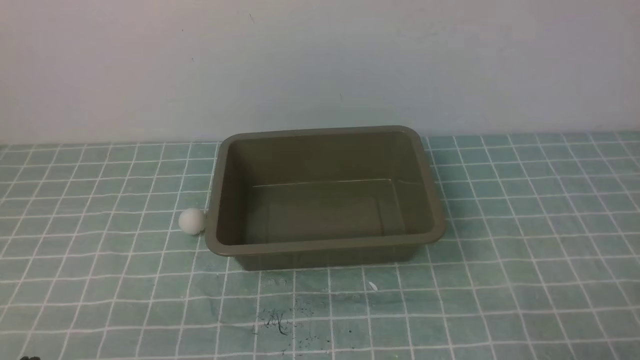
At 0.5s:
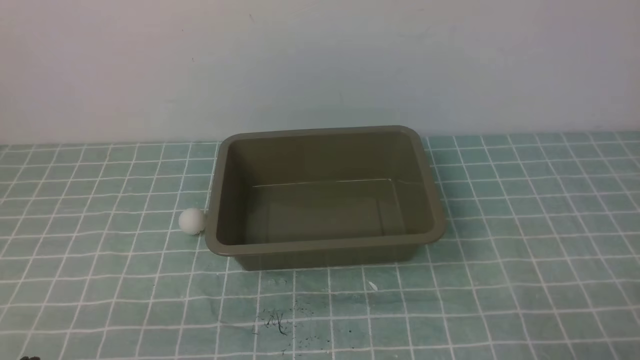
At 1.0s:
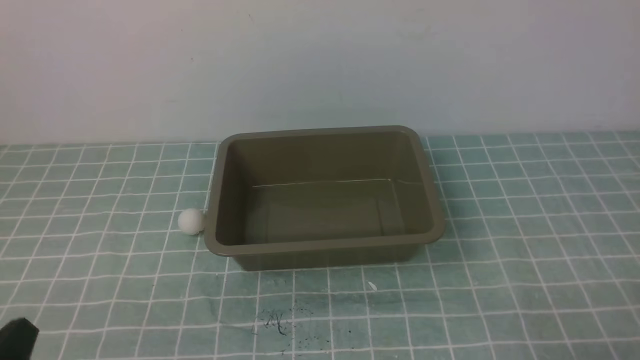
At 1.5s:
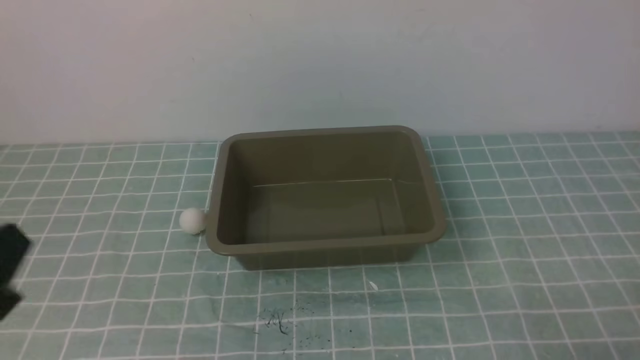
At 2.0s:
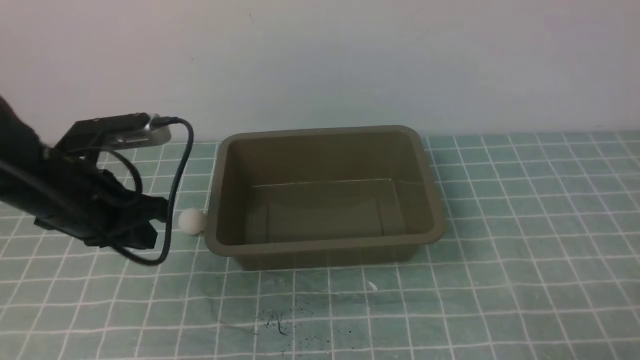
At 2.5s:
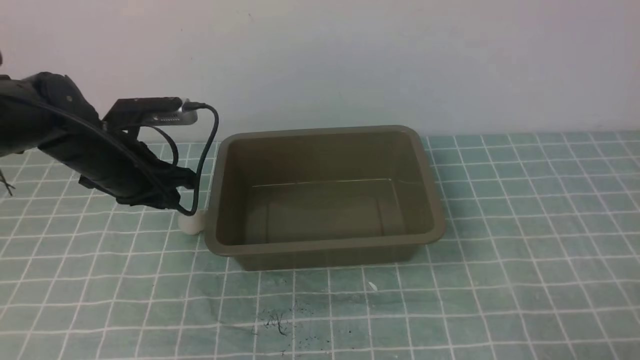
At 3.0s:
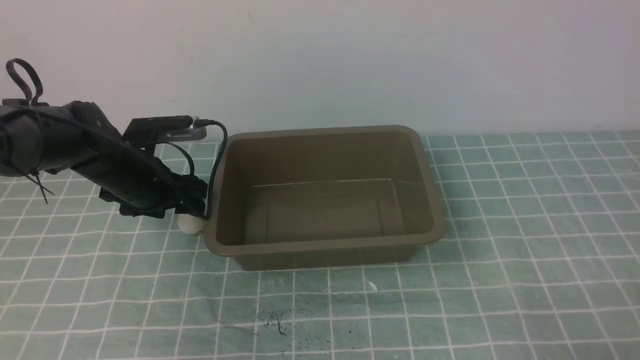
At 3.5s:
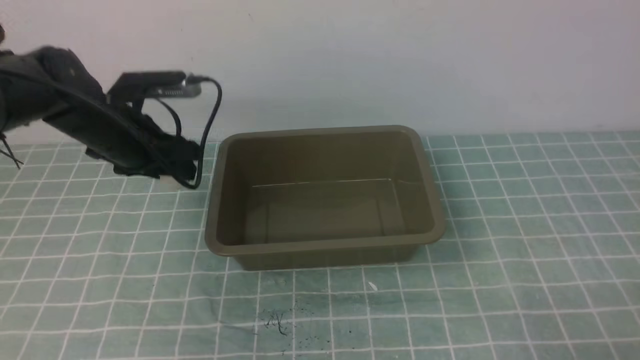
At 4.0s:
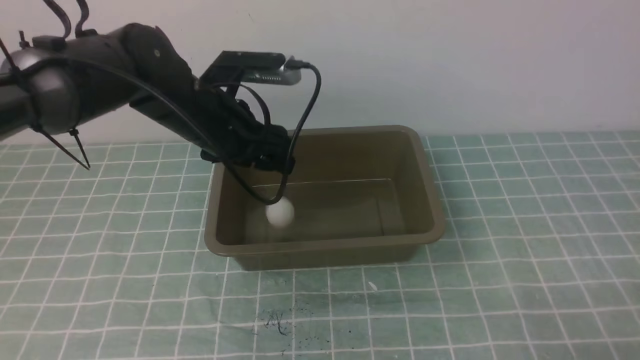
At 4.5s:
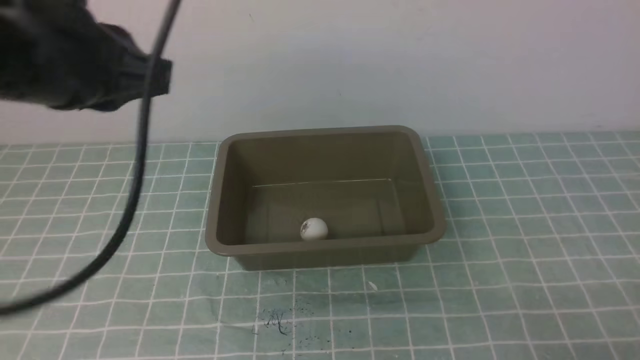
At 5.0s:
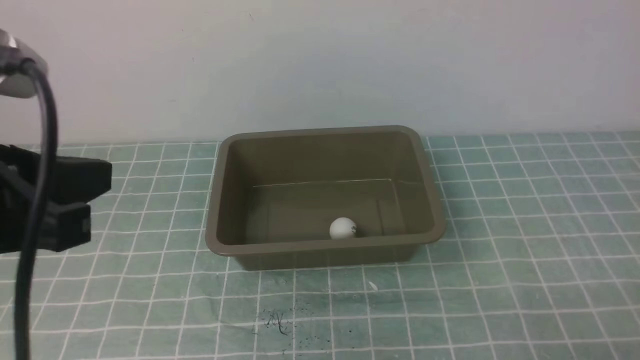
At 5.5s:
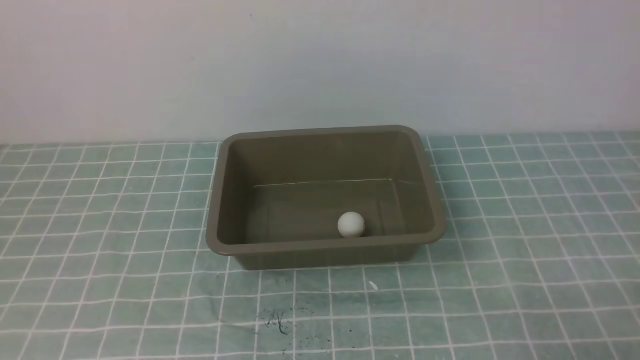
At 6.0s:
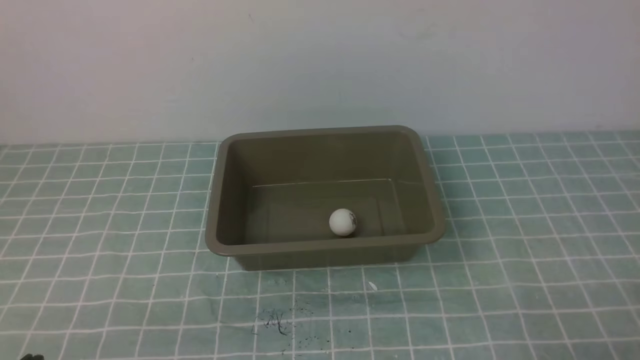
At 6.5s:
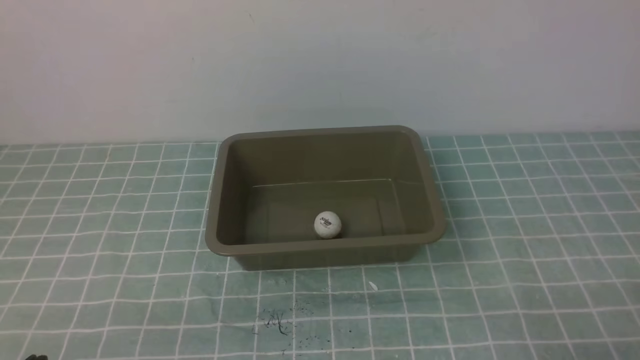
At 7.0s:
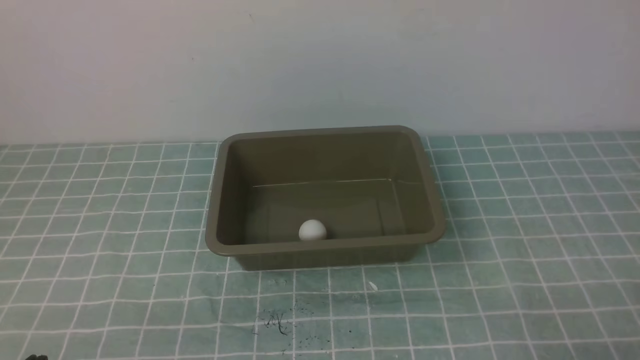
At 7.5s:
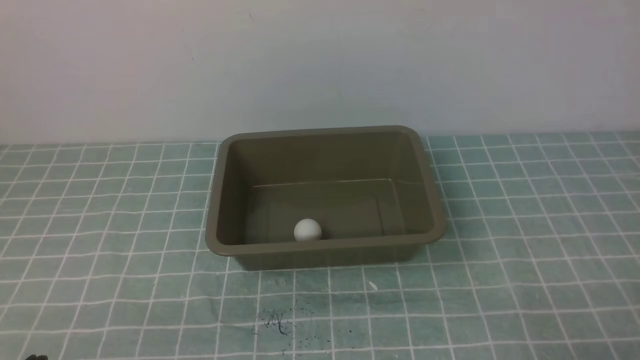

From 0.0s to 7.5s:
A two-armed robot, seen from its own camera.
Step, from 0.0s to 3.0s: use the left arm to clamp the table tennis ball closest to it.
Step, from 3.5s to 4.5s: use the left arm to put the table tennis ball into the box.
From 2.0s to 4.0s: The left gripper moves forward and to the right, roughly 15 cm, and opens.
From 4.0s to 5.5s: The left gripper goes approximately 30 cm backward, and closes.
From 5.5s to 7.5s: The left gripper moves downward, some 20 cm.
